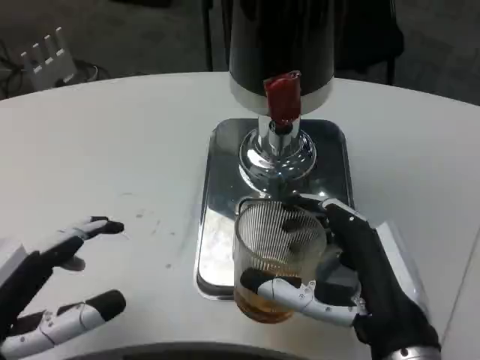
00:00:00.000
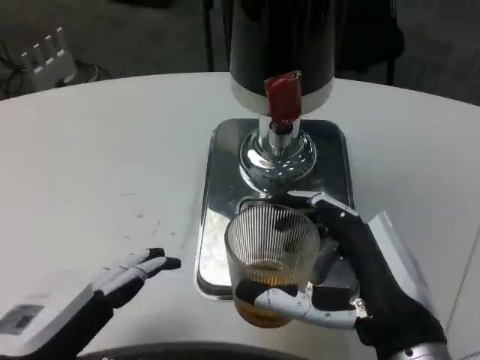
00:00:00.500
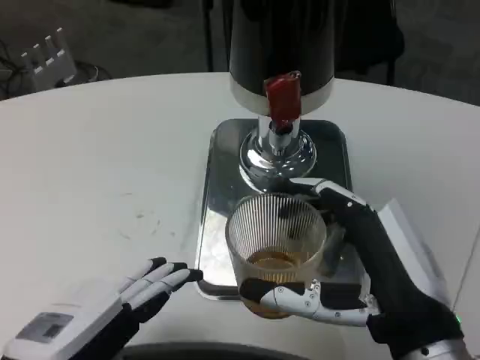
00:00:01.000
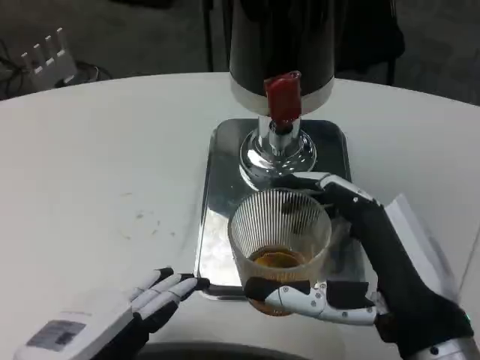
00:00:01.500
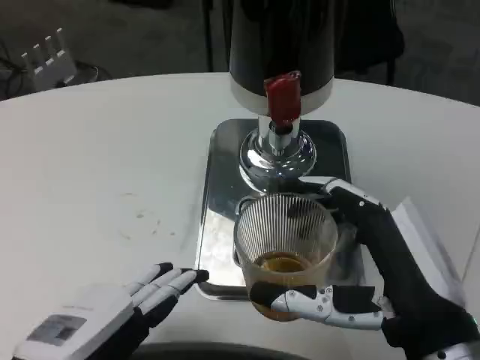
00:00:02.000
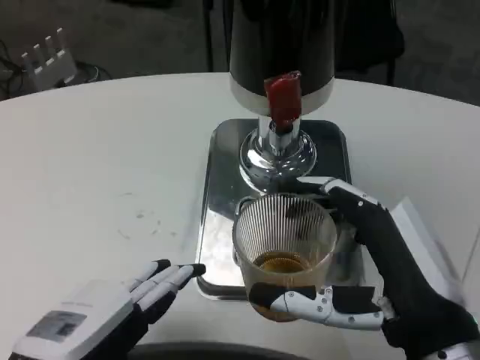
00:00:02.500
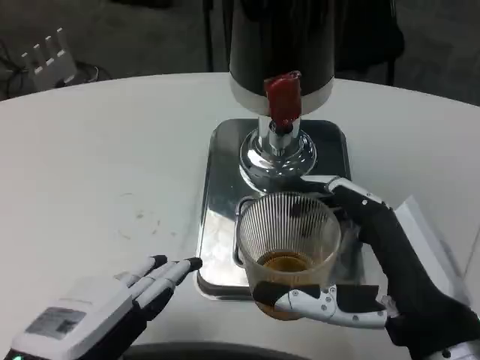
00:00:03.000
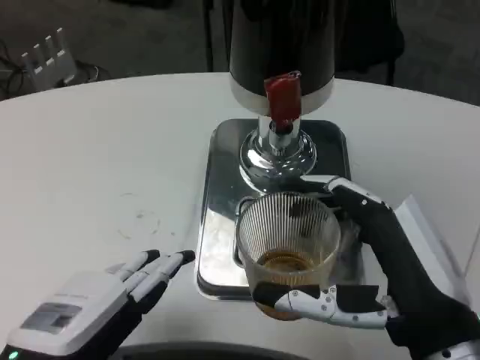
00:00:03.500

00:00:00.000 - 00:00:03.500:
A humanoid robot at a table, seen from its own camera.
Task of the whole recording: Grasp the cup under the faucet to collect the drink, then remove the cup.
00:00:00.000 - 00:00:02.000: The left hand shifts approximately 5 cm to the right.
00:00:02.000 - 00:00:03.500: The hands stay close to where they were, moving slightly.

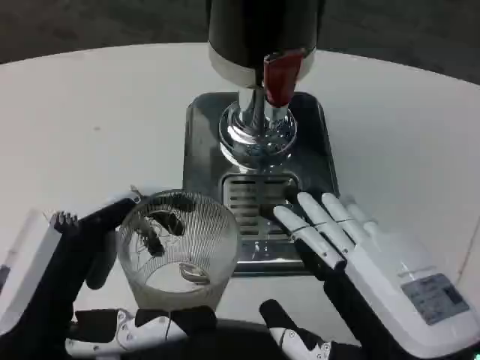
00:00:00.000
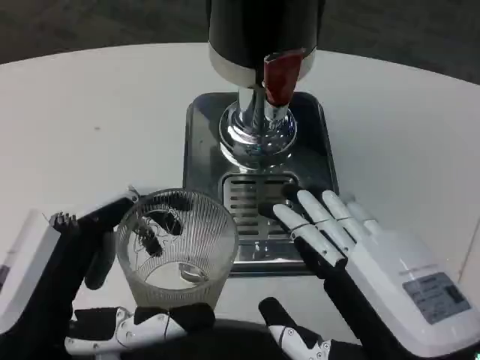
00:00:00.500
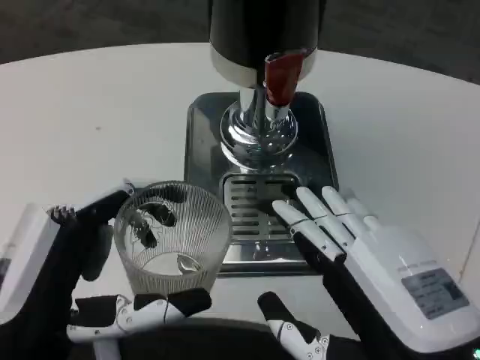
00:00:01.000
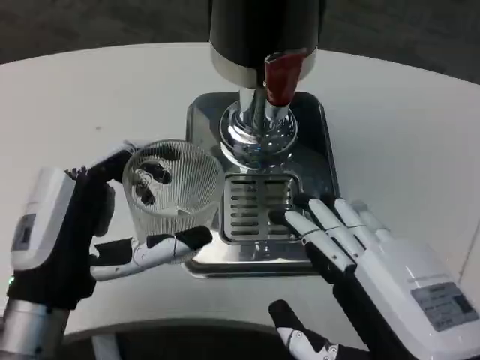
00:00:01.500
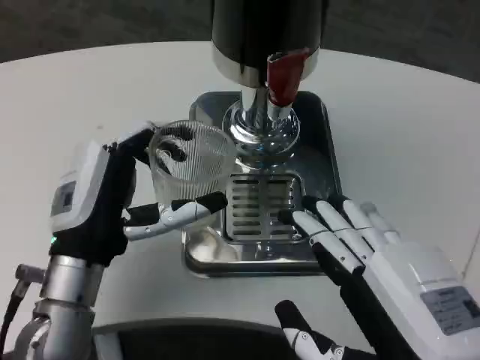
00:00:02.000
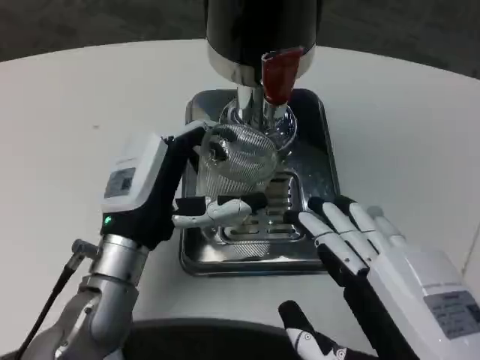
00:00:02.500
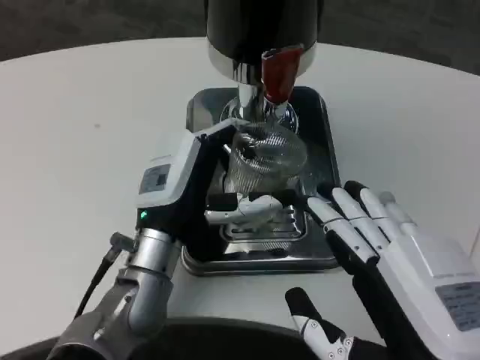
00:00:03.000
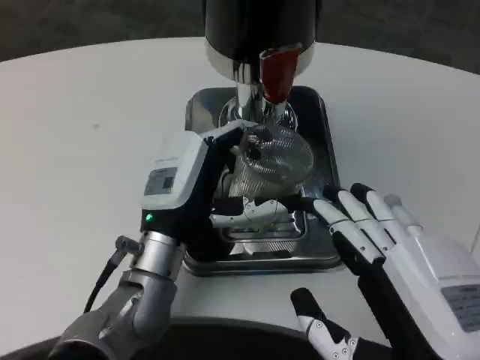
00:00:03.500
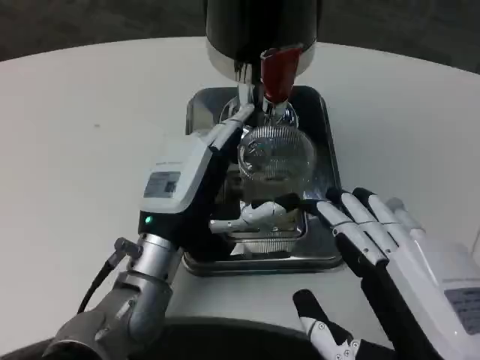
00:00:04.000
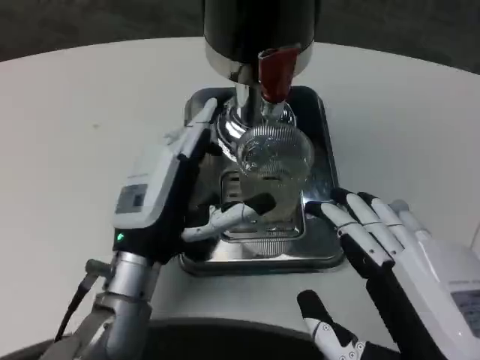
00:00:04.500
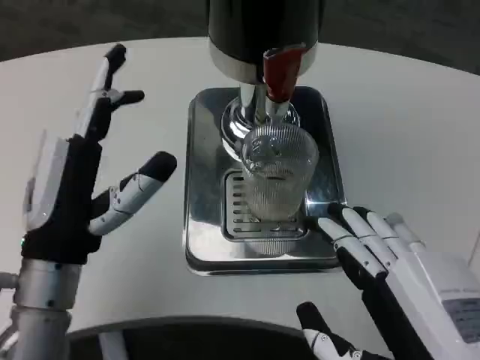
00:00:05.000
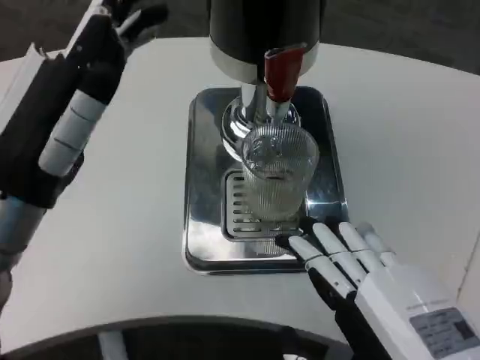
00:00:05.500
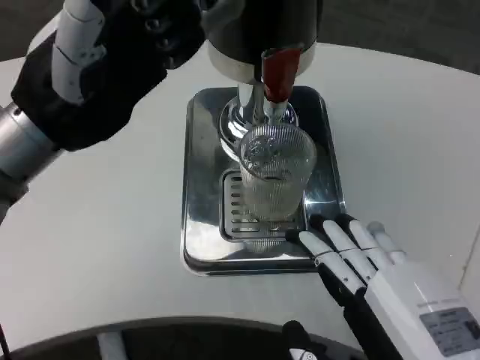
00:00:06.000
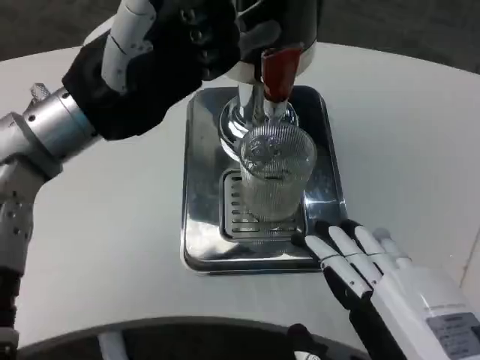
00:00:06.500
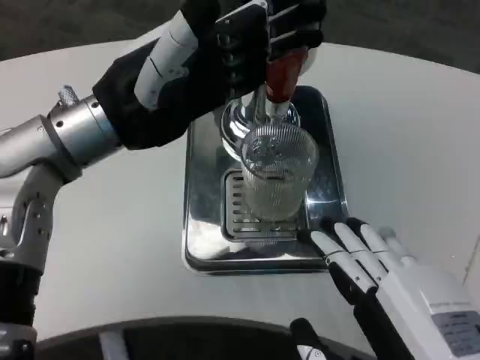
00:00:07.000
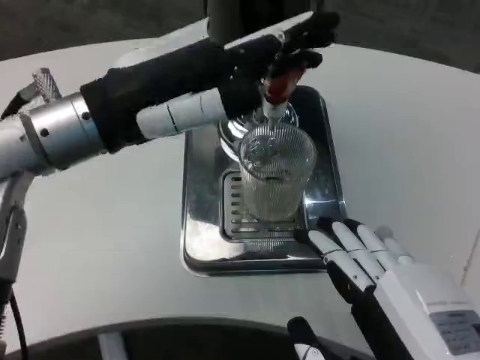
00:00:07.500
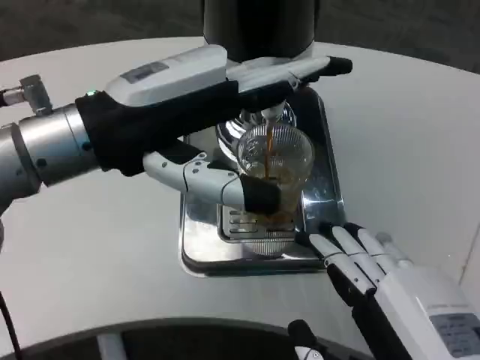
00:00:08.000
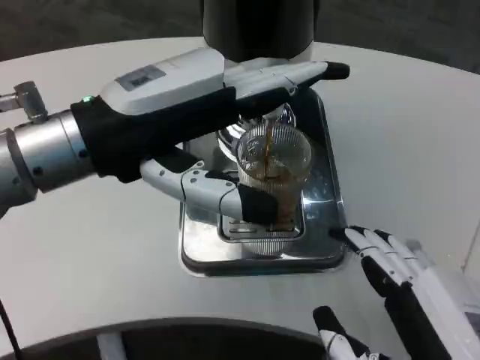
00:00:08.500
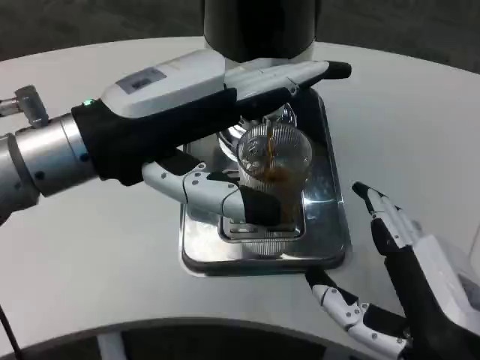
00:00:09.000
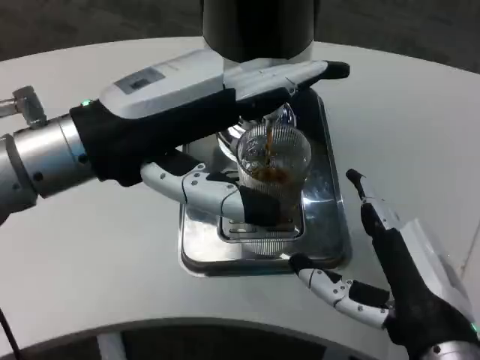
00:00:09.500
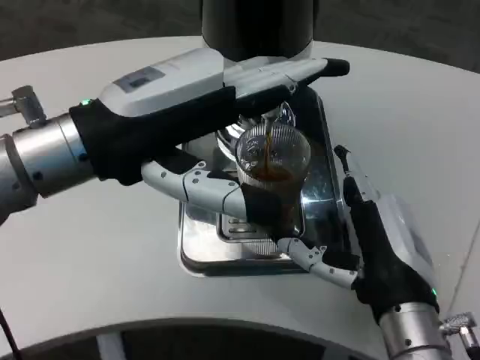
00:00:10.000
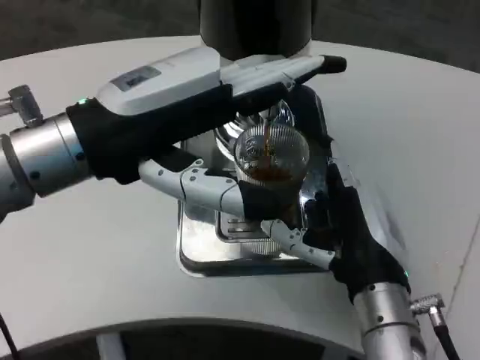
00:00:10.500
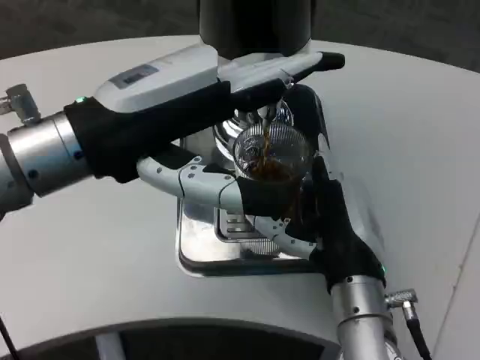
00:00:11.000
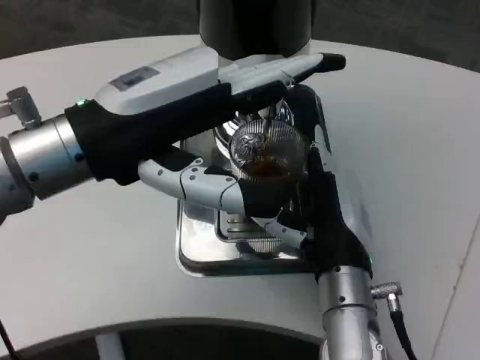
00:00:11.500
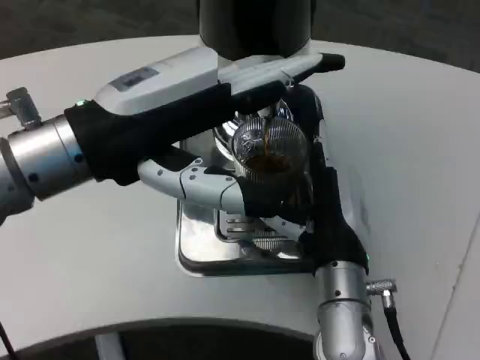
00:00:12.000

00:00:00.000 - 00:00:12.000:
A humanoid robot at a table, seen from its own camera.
Task of the whole recording: Grasp the cup under the faucet to collect the drink, then remove the cup.
00:00:00.000 - 00:00:02.000: The left hand travels forward by some 10 cm.
00:00:02.000 - 00:00:04.000: The left hand travels to the right by some 5 cm.
00:00:04.000 - 00:00:06.000: The left hand is displaced upward and to the left by approximately 20 cm.
00:00:08.000 - 00:00:10.000: The right hand moves forward, some 10 cm.
00:00:10.000 - 00:00:12.000: The right hand goes roughly 10 cm forward and to the left.

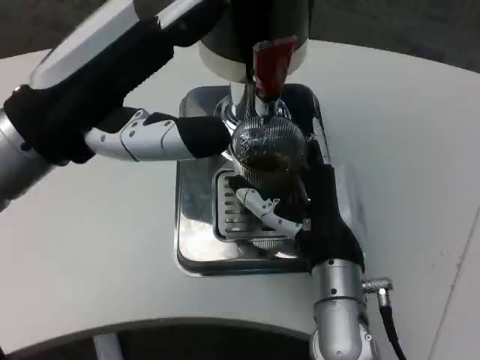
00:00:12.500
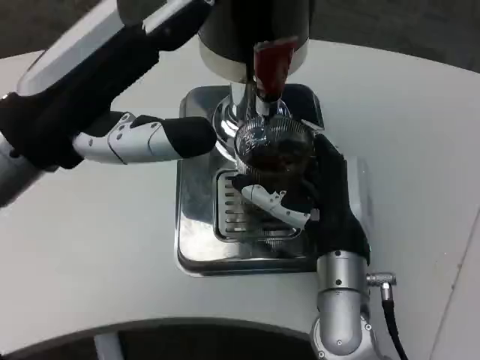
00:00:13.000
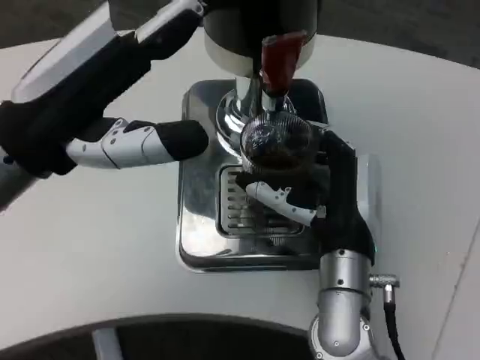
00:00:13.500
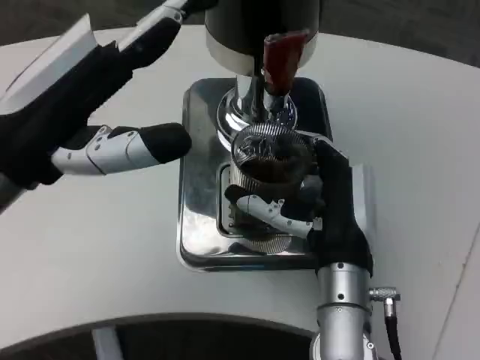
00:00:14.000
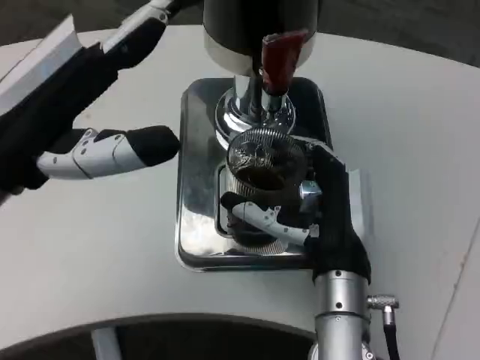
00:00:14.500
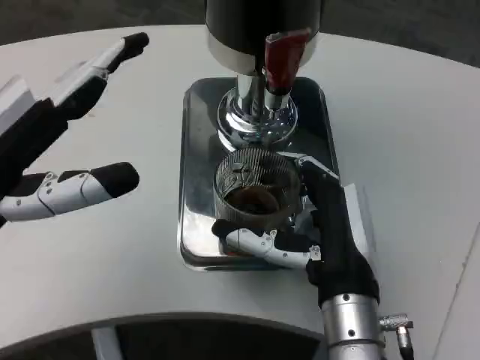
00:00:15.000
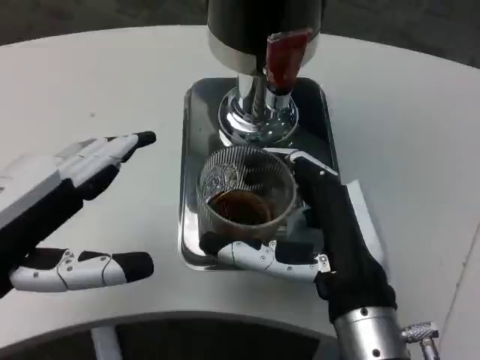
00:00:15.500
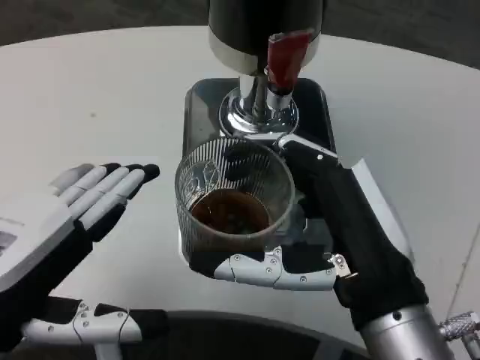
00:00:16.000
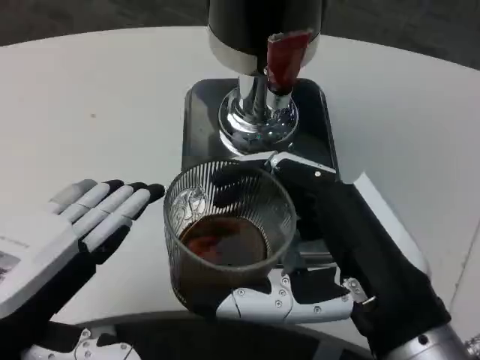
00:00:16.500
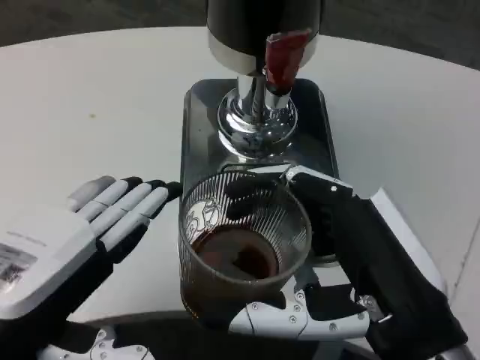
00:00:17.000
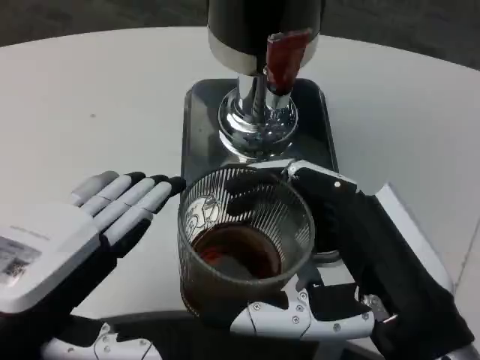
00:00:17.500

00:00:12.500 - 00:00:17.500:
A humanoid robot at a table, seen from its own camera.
Task of the whole recording: Grasp the cup under the faucet to collect the drink, then remove the cup.
00:00:12.500 - 00:00:15.000: The left hand goes roughly 5 cm to the left.
00:00:15.000 - 00:00:17.500: The left hand heads backward, covering approximately 5 cm. The right hand travels backward, upward and to the right by about 15 cm.

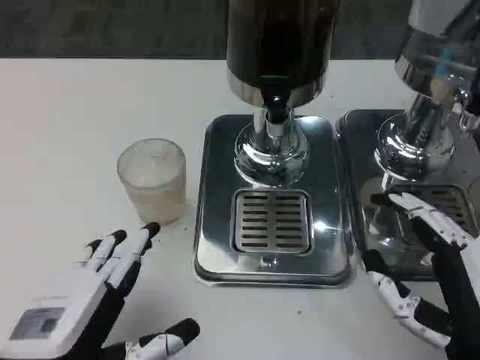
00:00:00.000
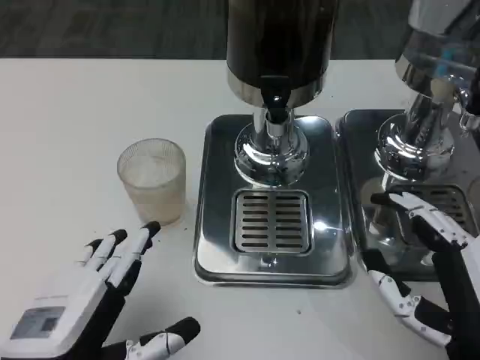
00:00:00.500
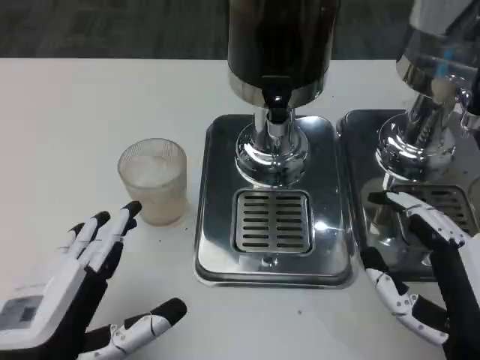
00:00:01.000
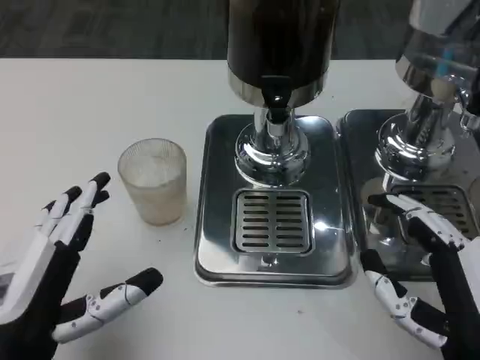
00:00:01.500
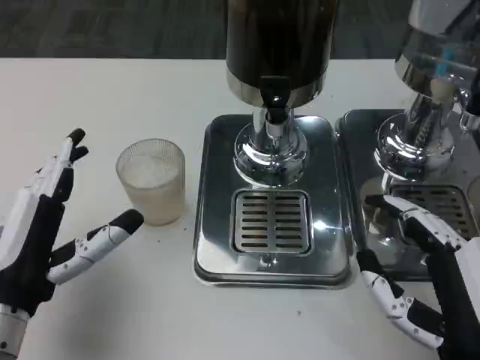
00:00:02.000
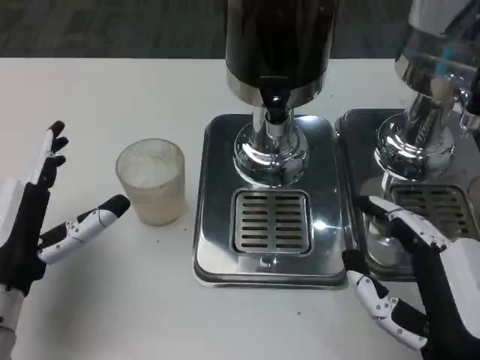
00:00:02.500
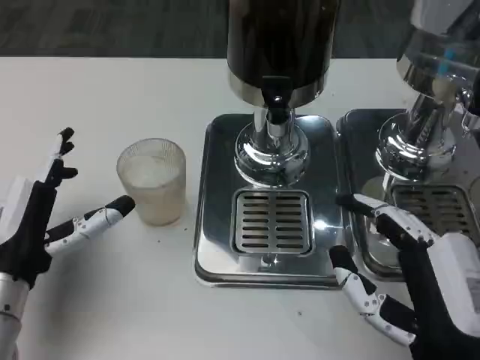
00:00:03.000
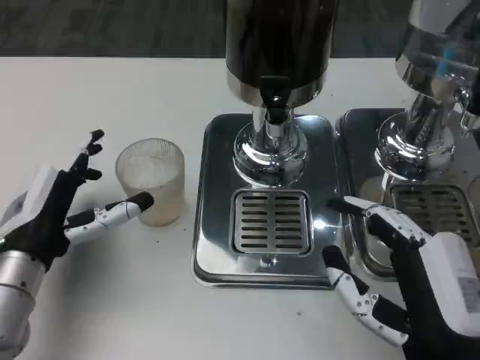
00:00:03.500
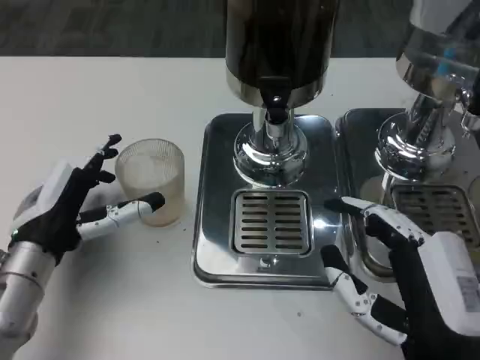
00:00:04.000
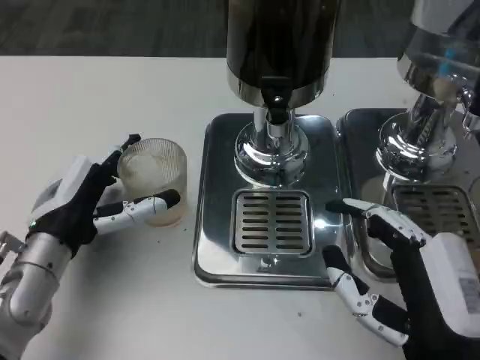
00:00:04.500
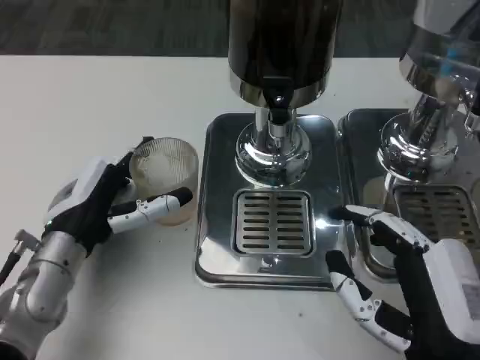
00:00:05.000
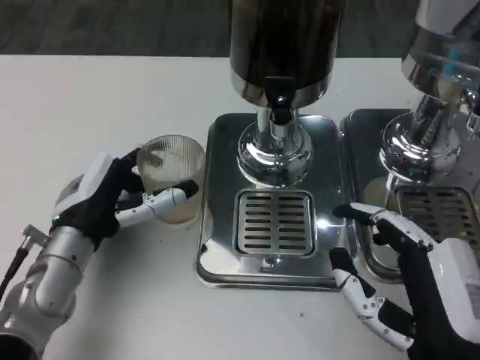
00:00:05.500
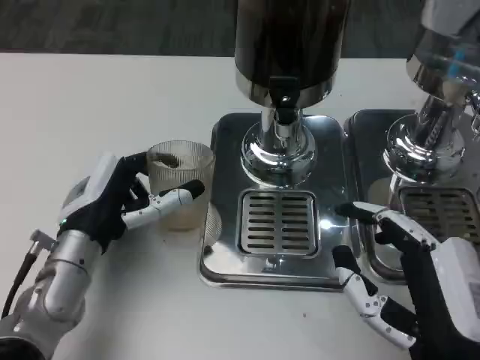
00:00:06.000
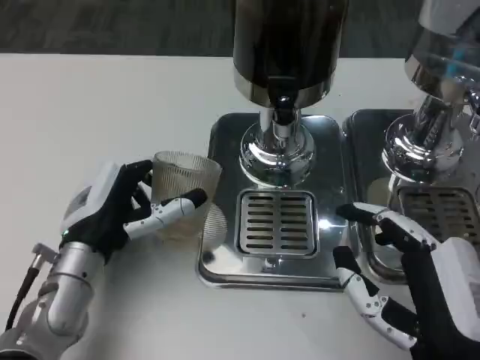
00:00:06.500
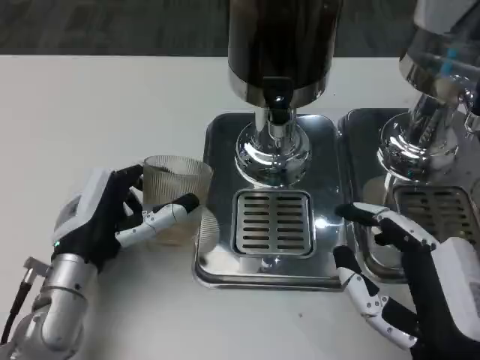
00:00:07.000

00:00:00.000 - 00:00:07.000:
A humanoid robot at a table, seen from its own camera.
Task of the whole recording: Grasp the cup under the faucet to collect the drink, then remove the cup.
00:00:00.000 - 00:00:02.000: The left hand travels forward by approximately 10 cm.
00:00:02.000 - 00:00:03.500: The left hand goes approximately 5 cm forward.
00:00:05.000 - 00:00:07.000: The hands stay close to where they were, moving slightly.
